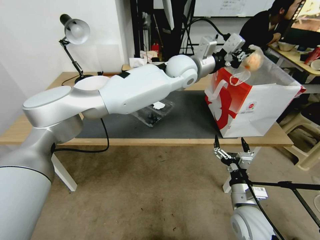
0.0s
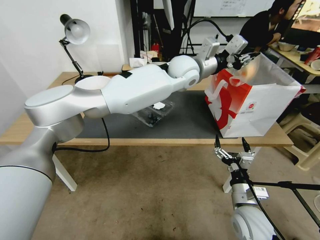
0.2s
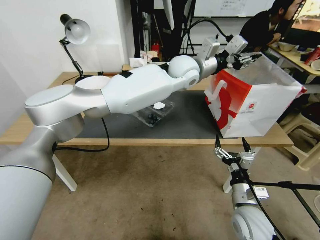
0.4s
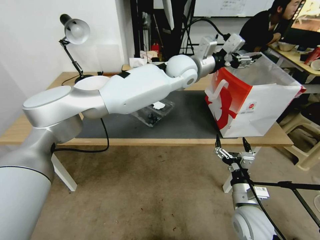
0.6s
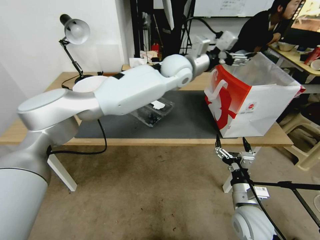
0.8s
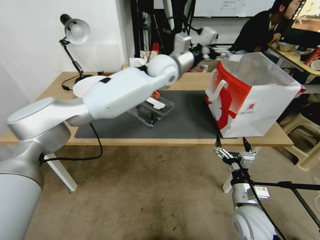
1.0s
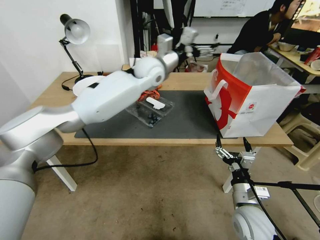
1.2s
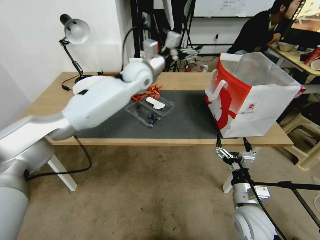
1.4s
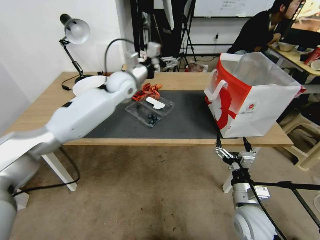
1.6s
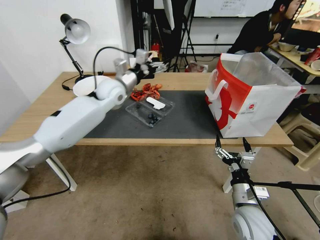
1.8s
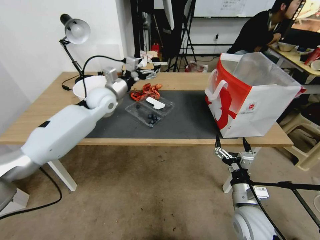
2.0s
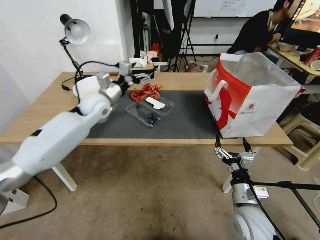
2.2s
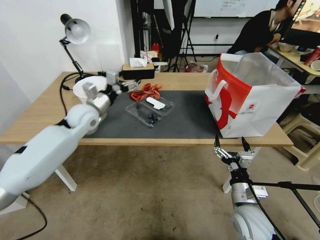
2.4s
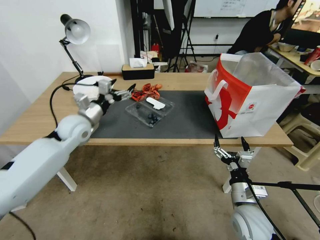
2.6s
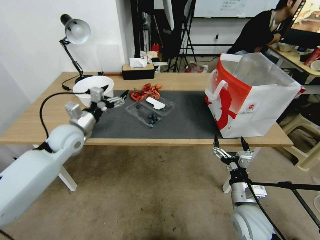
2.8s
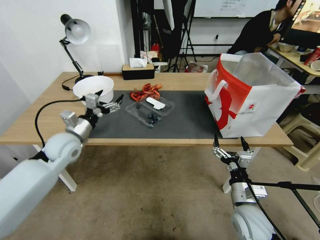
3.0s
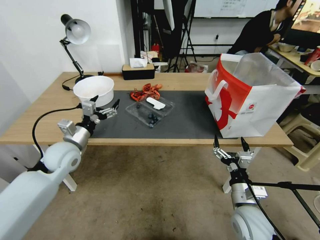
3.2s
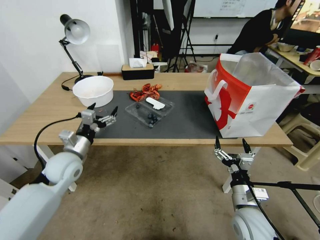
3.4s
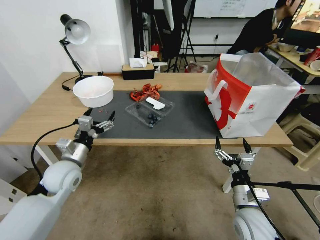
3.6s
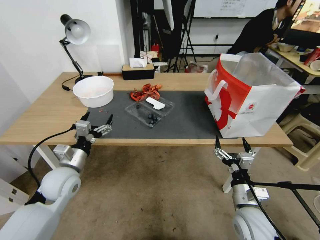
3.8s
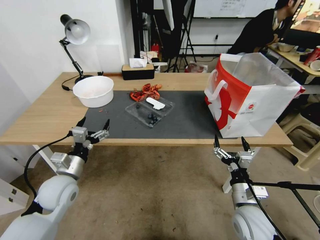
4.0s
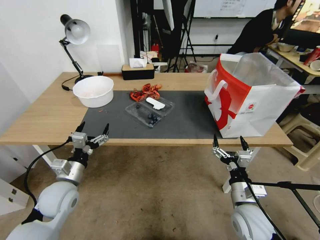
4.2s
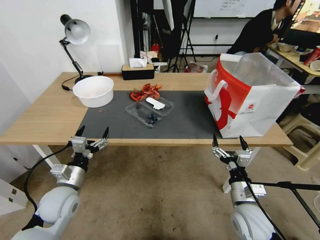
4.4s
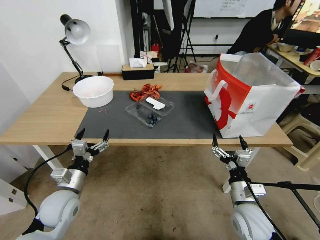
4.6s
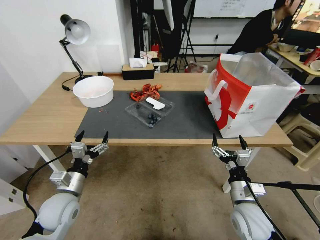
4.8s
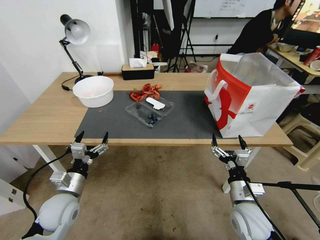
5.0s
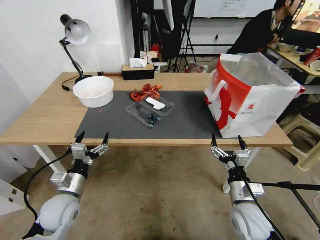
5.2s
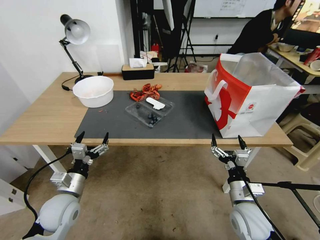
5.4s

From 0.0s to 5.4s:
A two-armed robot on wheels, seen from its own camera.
From 0.0s to 1.4s: The left gripper travels to the left by about 15 cm, and opens up.
From 1.4s to 2.8s: The left gripper heads to the left, backward and downward, covering roughly 30 cm.
From 2.8s to 4.0s: The left gripper travels backward and downward by some 15 cm.
From 4.0s to 5.4s: The left gripper moves backward, some 5 cm.

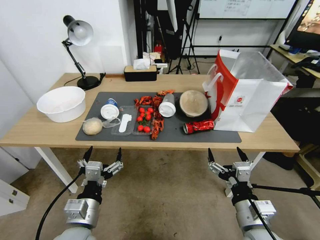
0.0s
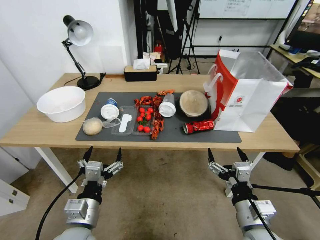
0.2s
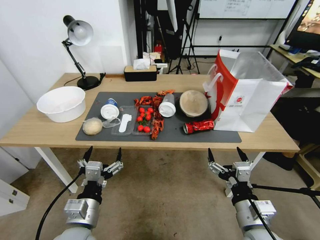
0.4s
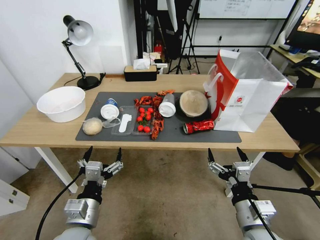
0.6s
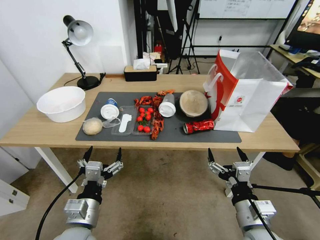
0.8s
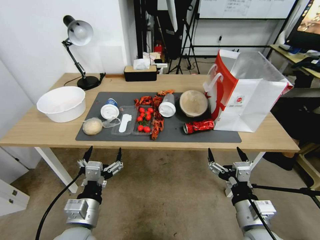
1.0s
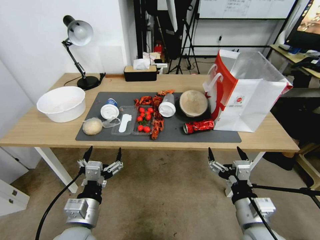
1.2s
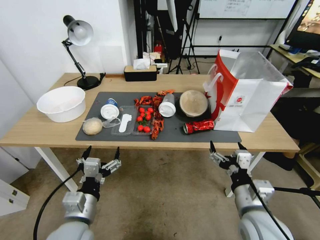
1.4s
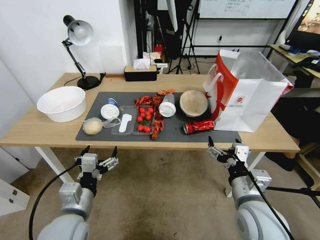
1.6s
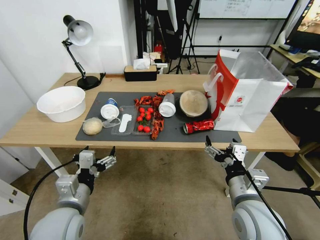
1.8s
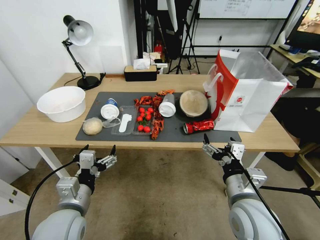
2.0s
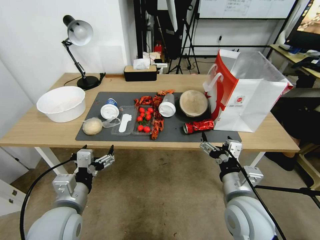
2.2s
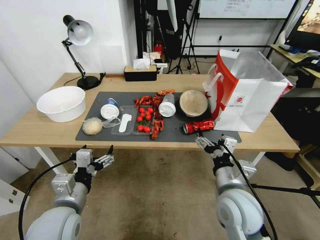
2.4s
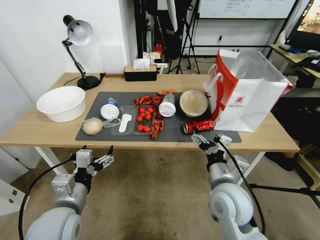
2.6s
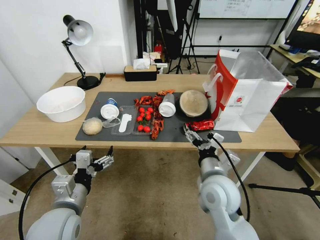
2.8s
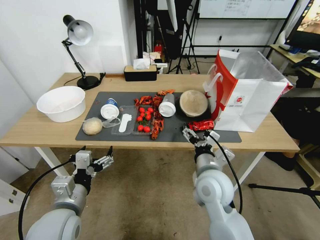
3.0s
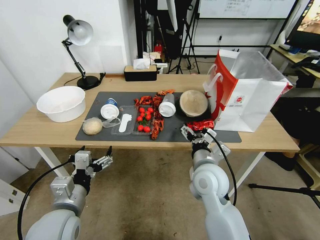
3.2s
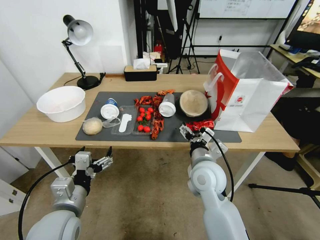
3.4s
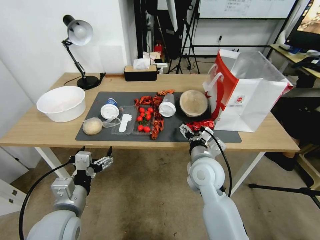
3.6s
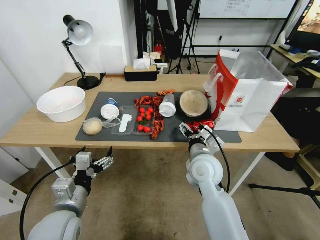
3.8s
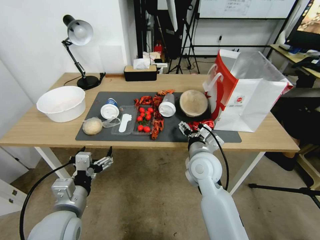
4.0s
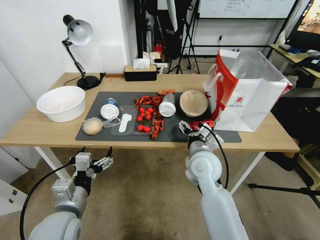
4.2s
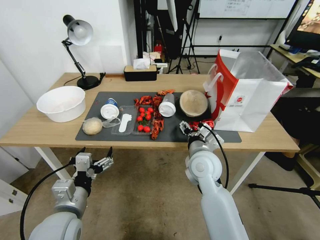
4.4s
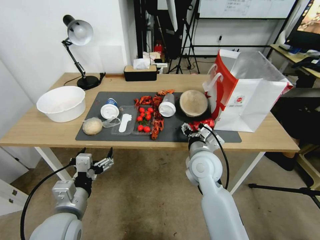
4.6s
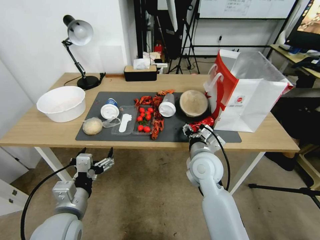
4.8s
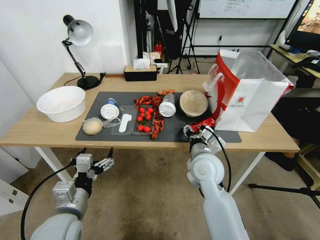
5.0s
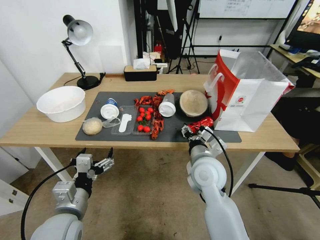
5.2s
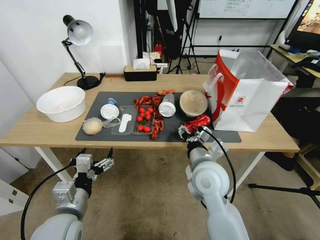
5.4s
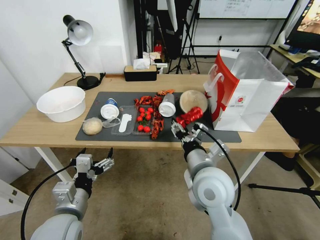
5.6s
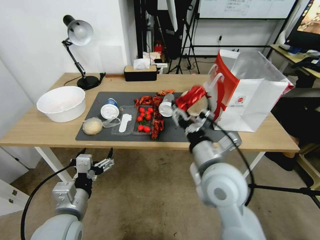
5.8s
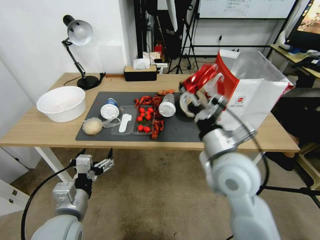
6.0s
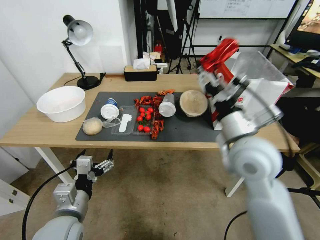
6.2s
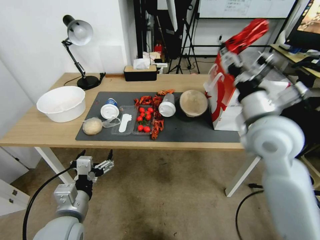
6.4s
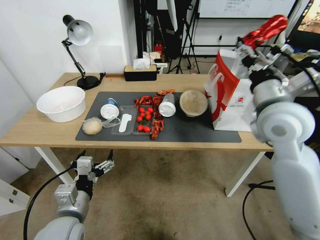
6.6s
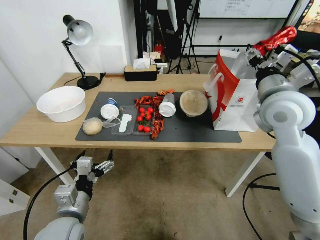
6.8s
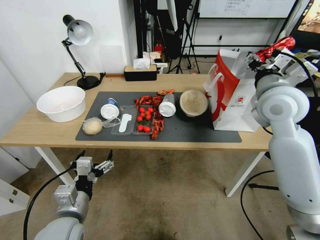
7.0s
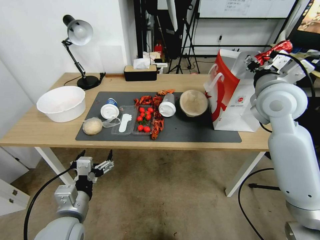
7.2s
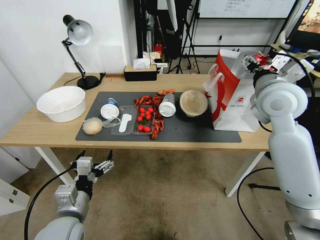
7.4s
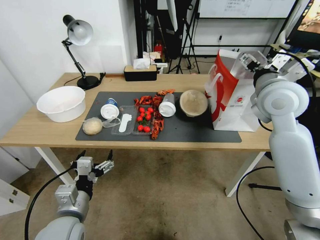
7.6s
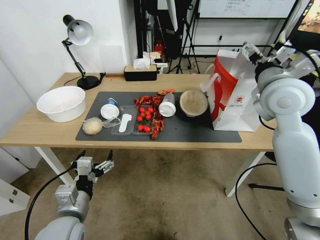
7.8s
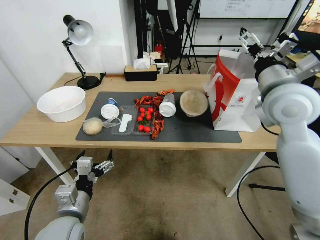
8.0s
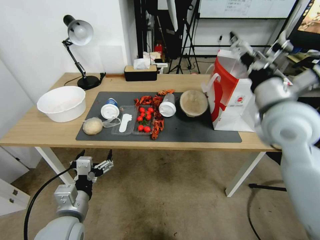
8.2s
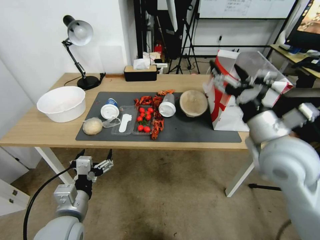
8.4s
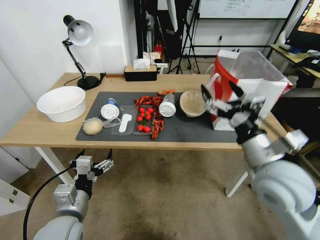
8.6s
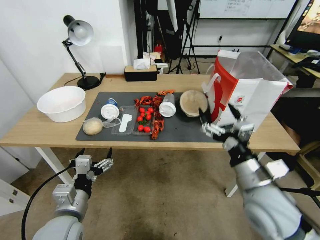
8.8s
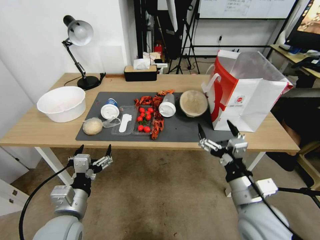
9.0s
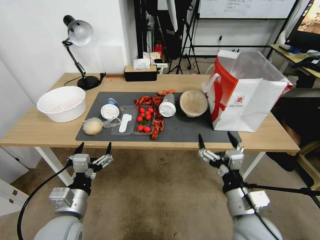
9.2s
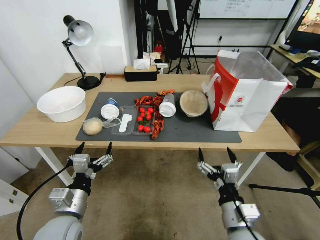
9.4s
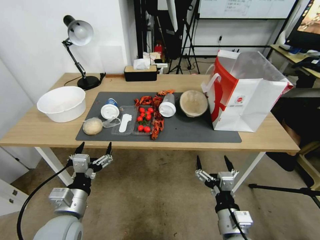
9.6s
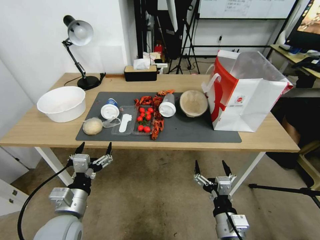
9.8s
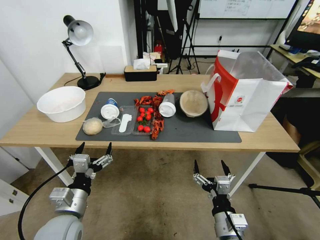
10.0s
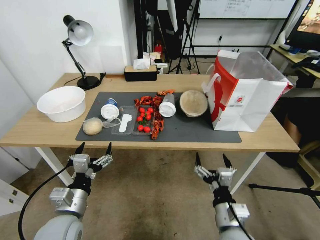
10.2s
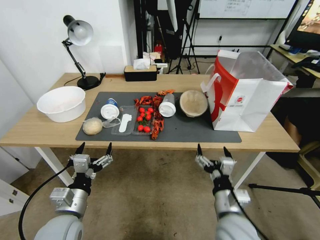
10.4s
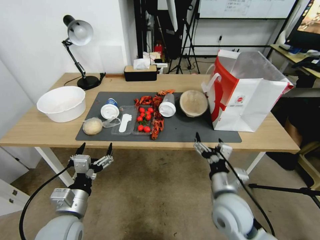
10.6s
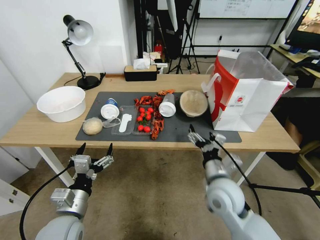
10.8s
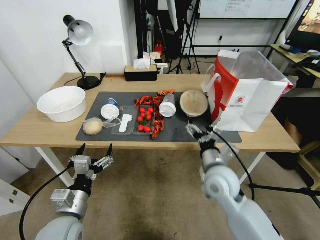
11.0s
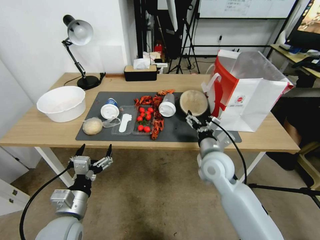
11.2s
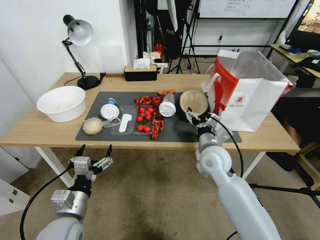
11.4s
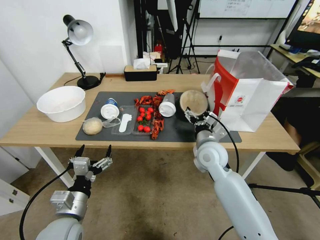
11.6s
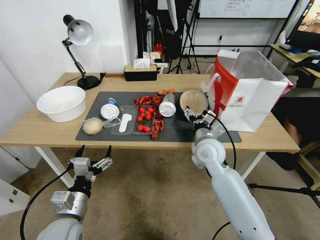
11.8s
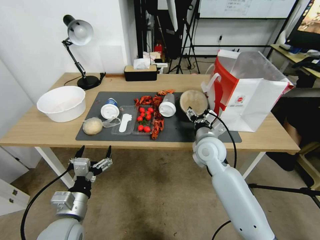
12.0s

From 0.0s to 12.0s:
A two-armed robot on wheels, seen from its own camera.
From 1.6s to 3.0s: The right gripper travels to the left and forward by approximately 10 cm.
From 3.0s to 4.4s: The right gripper shifts some 5 cm forward.
From 4.4s to 6.0s: The right gripper goes approximately 10 cm upward and backward, and closes.
From 6.0s to 7.6s: The right gripper is displaced forward, to the right and upward by some 20 cm, and opens.
From 7.6s to 9.0s: The right gripper is displaced backward and downward by some 30 cm.
From 9.0s to 10.4s: The right gripper is displaced downward by approximately 10 cm.
From 10.4s to 12.0s: The right gripper heads forward, covering about 20 cm.

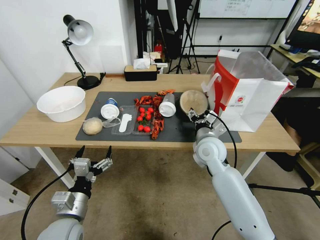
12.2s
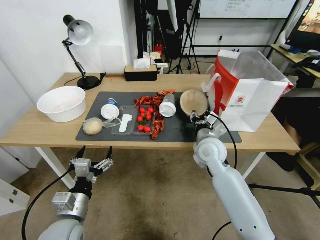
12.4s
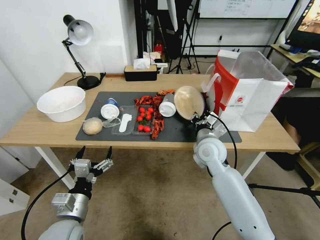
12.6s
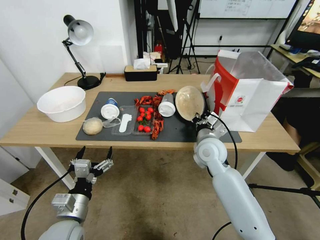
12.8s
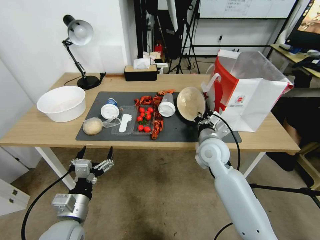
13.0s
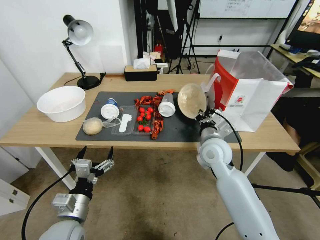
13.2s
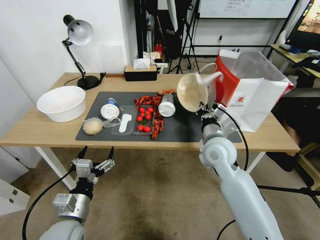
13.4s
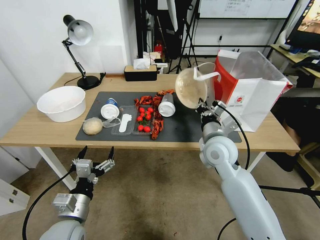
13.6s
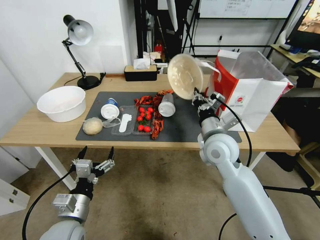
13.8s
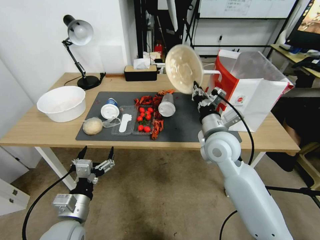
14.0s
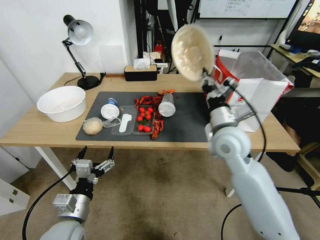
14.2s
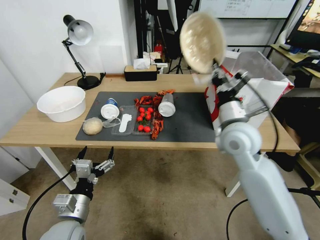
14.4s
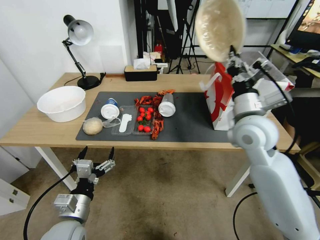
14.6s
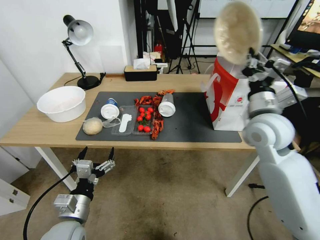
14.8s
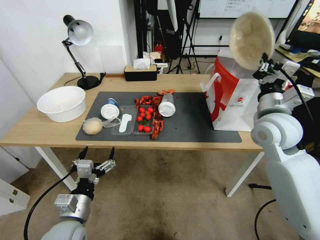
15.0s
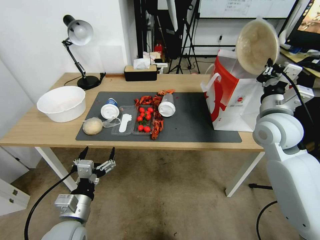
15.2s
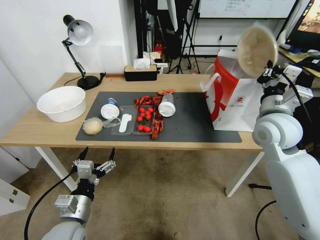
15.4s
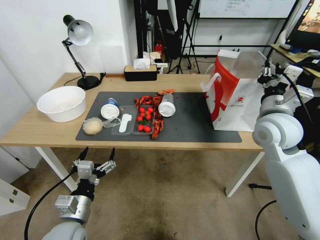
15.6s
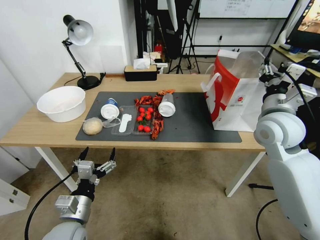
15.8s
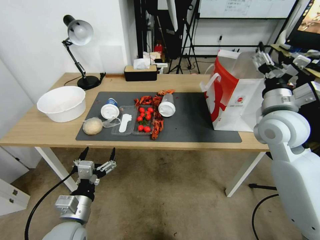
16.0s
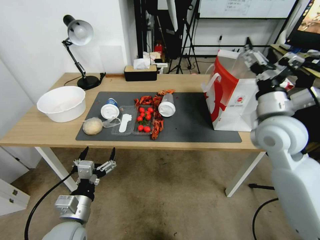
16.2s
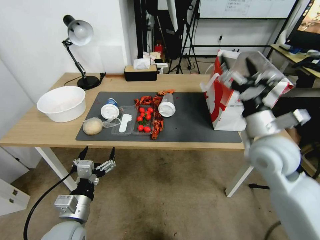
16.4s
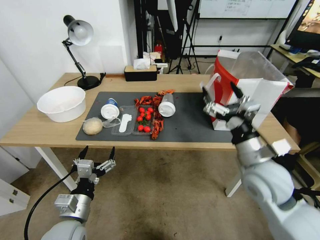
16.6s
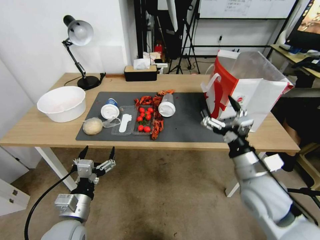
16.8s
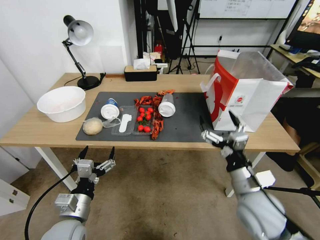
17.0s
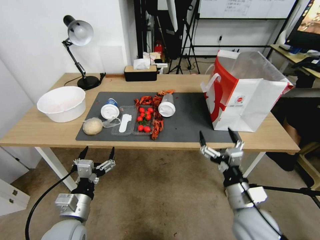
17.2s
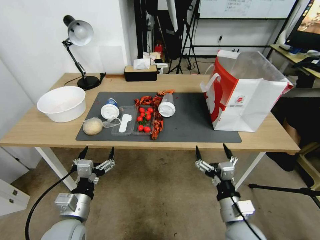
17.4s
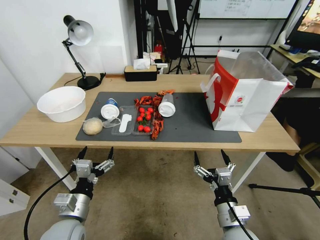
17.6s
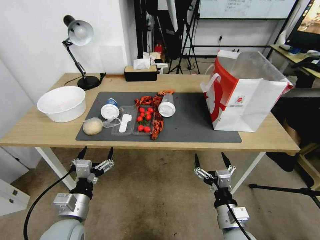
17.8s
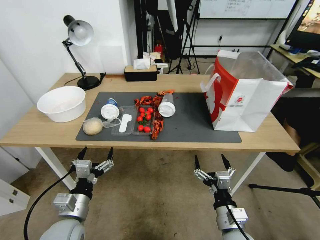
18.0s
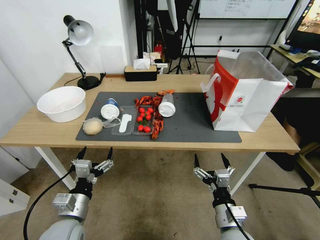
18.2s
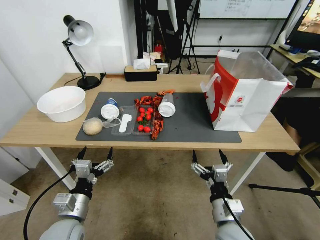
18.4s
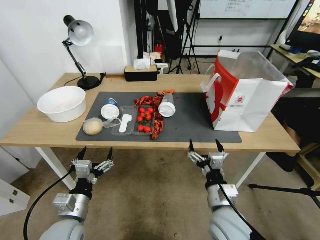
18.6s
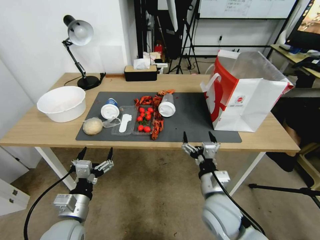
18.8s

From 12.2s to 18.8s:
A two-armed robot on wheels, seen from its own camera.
From 12.2s to 13.8s: The right gripper goes some 5 cm upward, and closes.
From 13.8s to 15.4s: The right gripper travels to the right and upward by approximately 15 cm.
From 15.4s to 17.2s: The right gripper shifts roughly 25 cm backward and downward, and opens.
From 17.2s to 18.8s: The right gripper moves to the left, approximately 5 cm.
